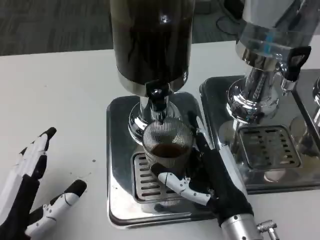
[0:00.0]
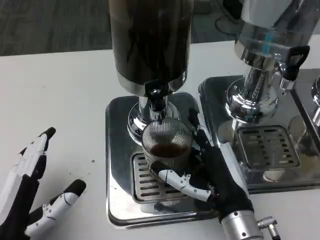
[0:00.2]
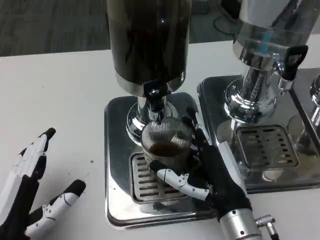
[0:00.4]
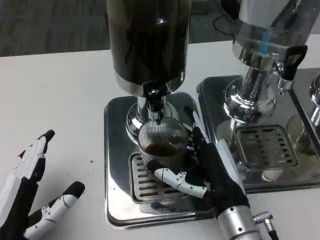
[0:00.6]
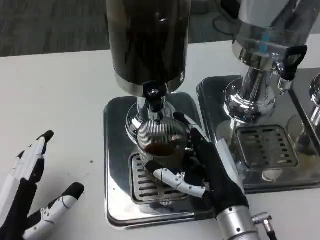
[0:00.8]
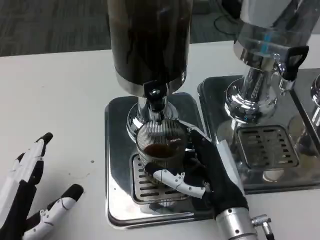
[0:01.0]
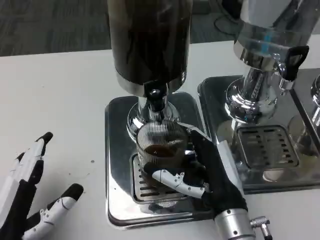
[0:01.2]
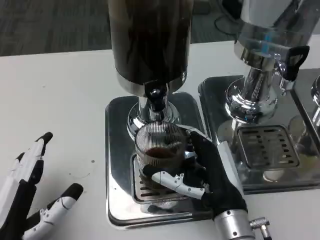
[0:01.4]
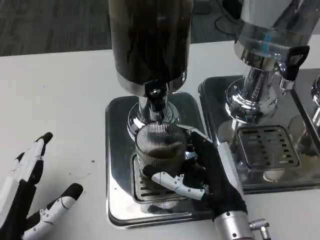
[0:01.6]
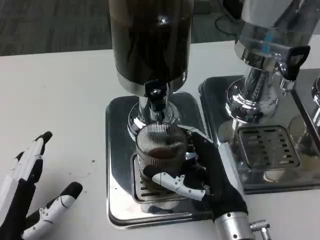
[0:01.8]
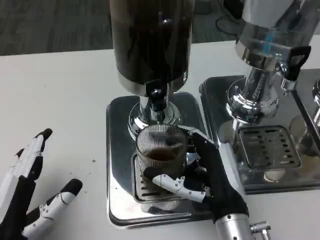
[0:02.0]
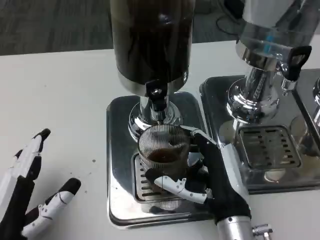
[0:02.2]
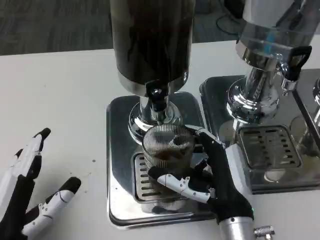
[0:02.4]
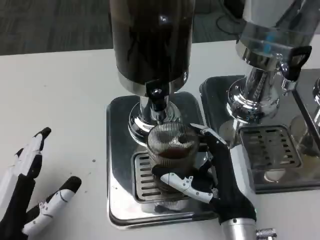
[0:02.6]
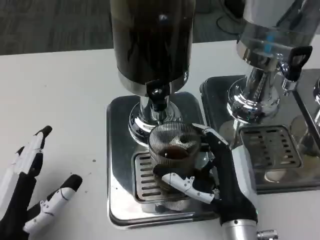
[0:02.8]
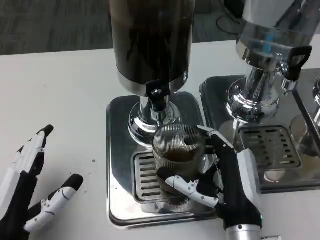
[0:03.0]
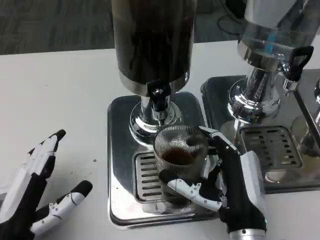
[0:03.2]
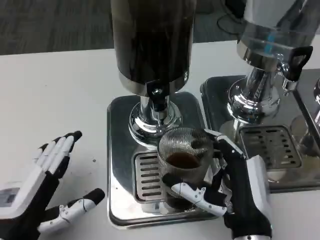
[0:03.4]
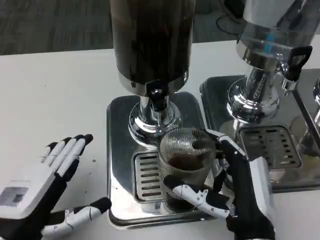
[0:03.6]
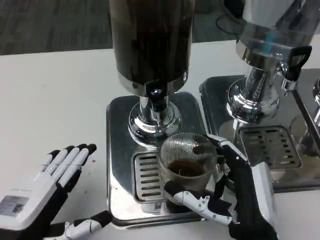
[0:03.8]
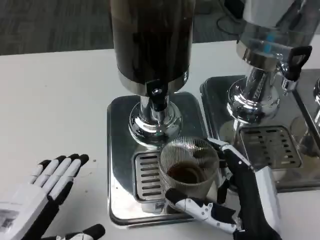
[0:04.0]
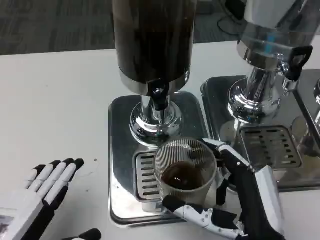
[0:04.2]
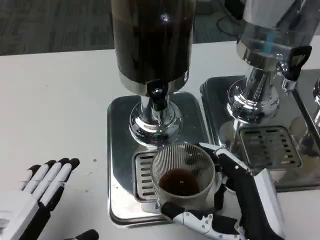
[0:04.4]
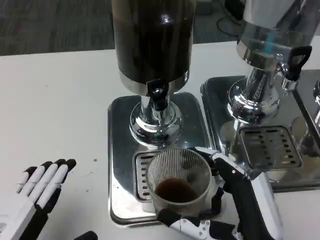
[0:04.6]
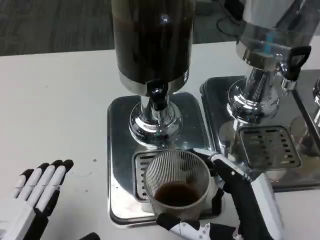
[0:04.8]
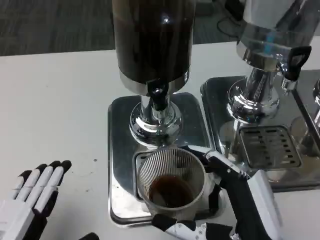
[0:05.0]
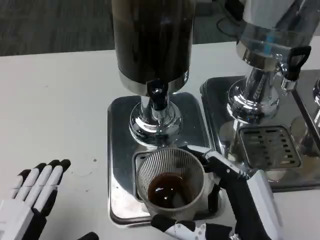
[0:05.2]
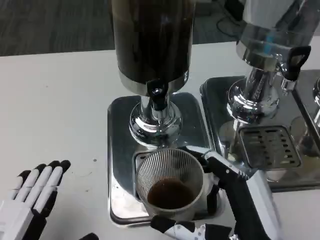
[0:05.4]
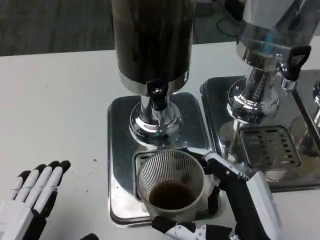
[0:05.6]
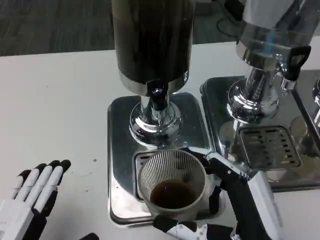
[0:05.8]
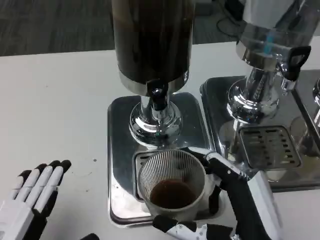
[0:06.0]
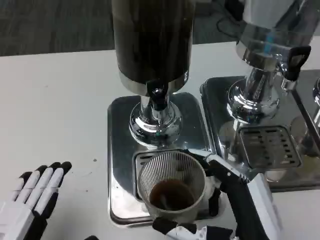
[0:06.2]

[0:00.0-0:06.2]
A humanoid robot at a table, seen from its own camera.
Task of the whole recording: Grasp the cup under the faucet to collect the drink, then remove the cup.
0:00.0 to 0:01.6: The hands stay close to where they were, moving slightly.
0:03.2 to 0:04.6: The right hand travels backward by approximately 5 cm, while the left hand moves roughly 5 cm.
0:04.6 to 0:06.2: The hands move only a little.

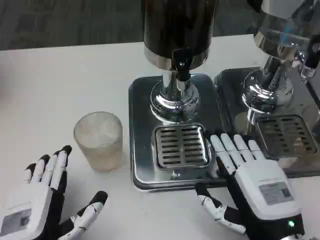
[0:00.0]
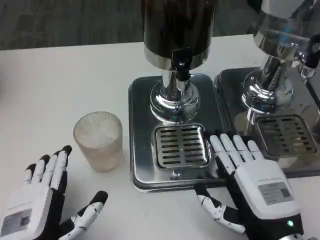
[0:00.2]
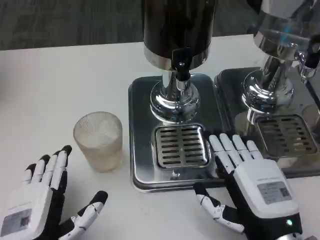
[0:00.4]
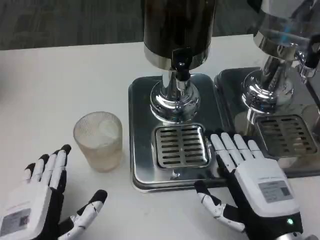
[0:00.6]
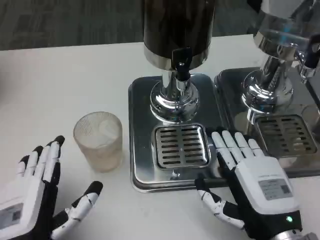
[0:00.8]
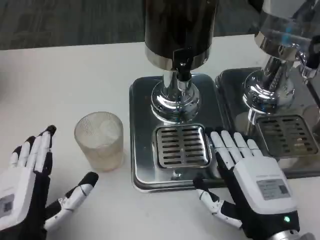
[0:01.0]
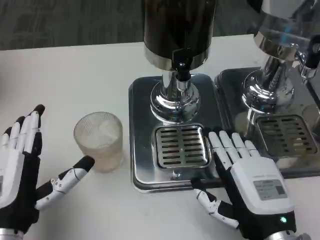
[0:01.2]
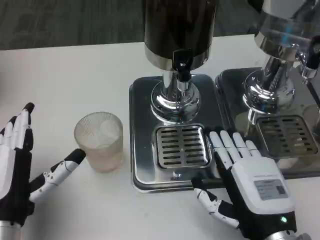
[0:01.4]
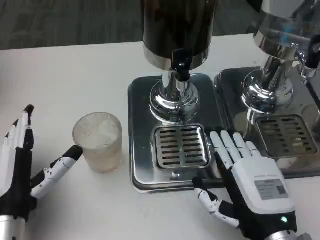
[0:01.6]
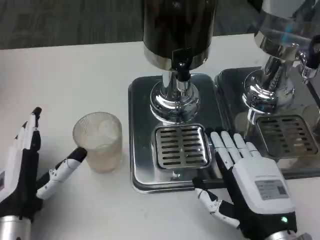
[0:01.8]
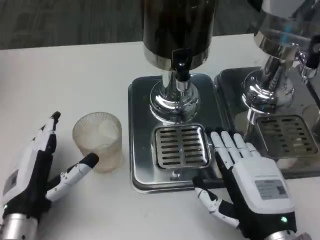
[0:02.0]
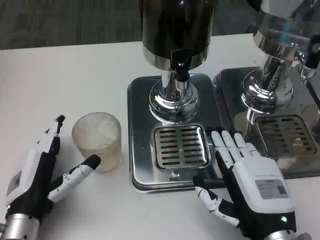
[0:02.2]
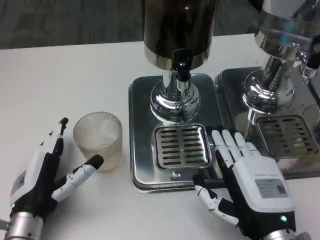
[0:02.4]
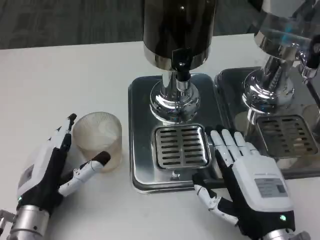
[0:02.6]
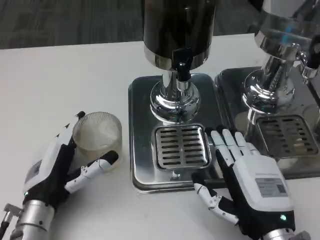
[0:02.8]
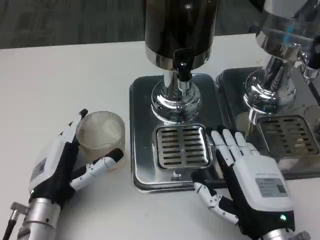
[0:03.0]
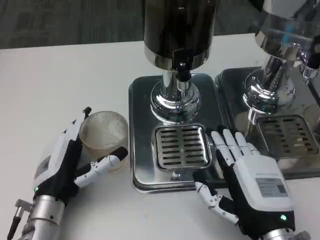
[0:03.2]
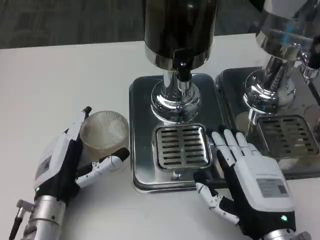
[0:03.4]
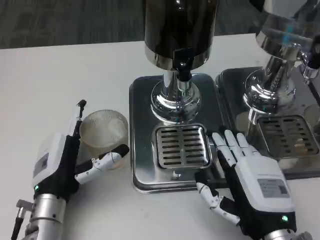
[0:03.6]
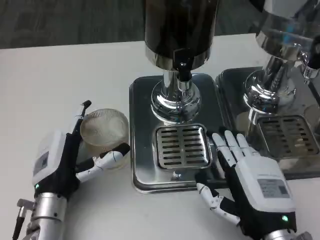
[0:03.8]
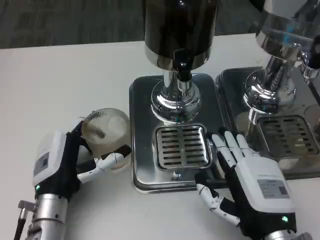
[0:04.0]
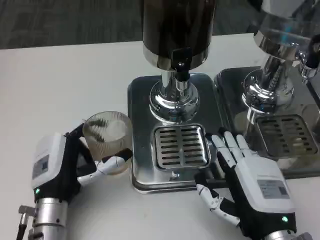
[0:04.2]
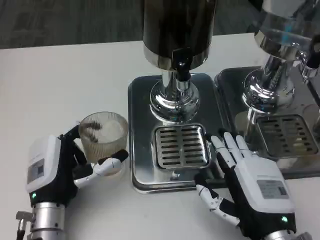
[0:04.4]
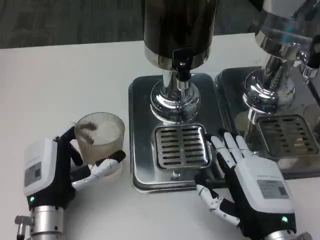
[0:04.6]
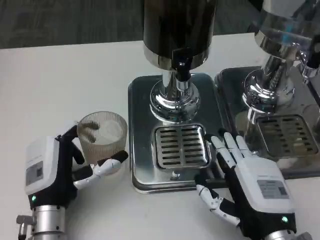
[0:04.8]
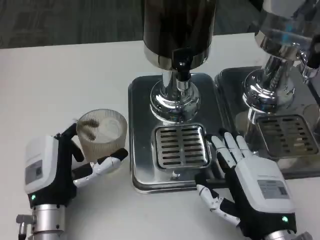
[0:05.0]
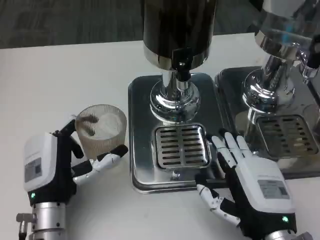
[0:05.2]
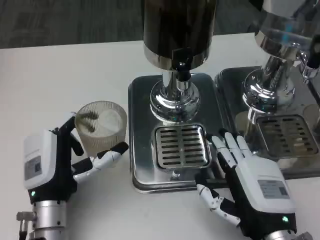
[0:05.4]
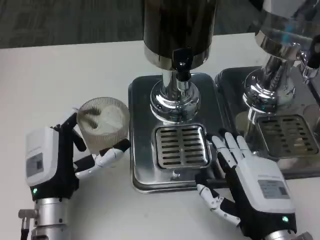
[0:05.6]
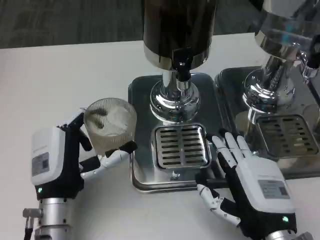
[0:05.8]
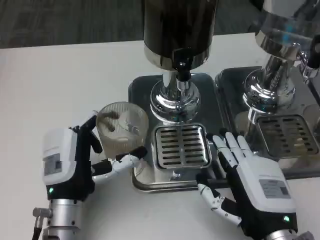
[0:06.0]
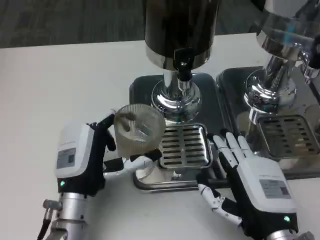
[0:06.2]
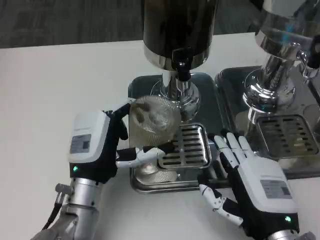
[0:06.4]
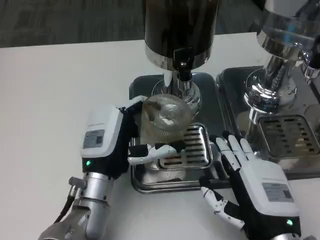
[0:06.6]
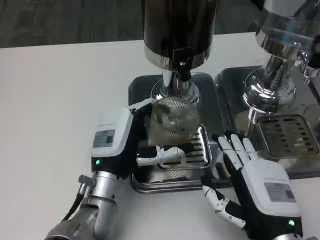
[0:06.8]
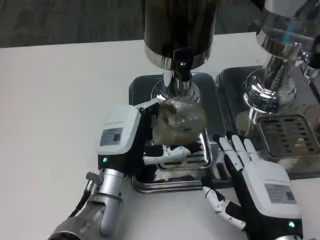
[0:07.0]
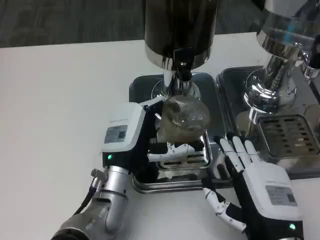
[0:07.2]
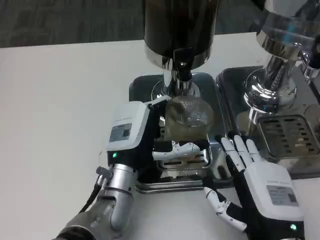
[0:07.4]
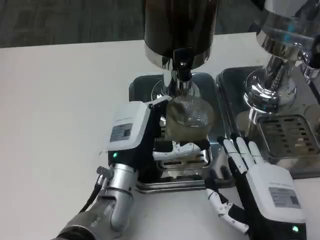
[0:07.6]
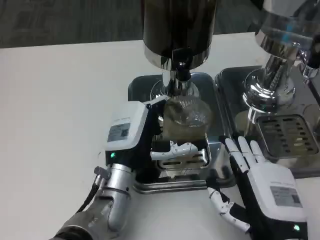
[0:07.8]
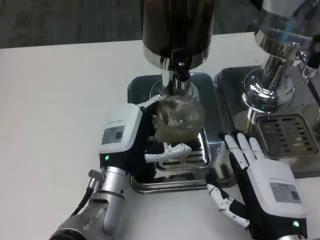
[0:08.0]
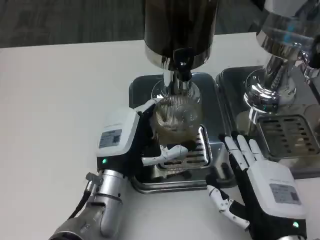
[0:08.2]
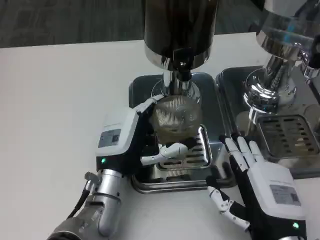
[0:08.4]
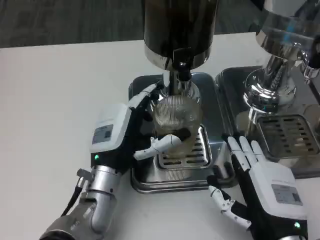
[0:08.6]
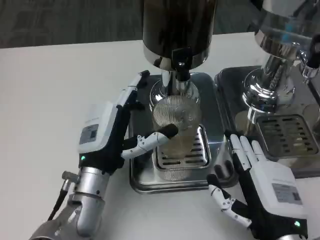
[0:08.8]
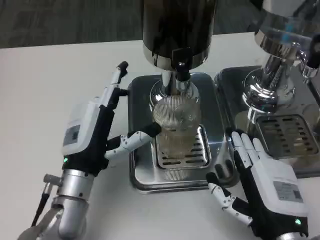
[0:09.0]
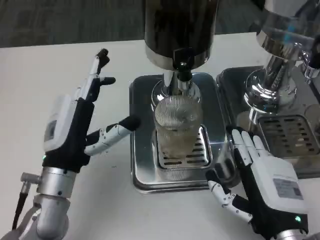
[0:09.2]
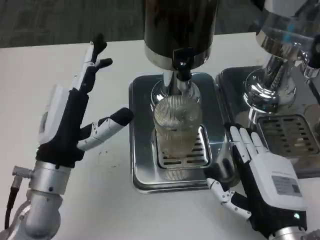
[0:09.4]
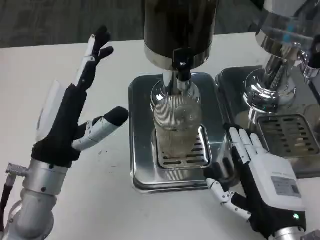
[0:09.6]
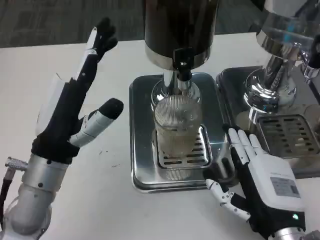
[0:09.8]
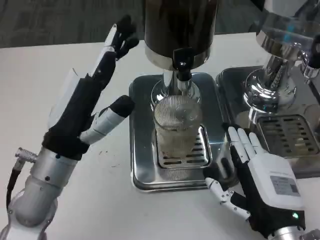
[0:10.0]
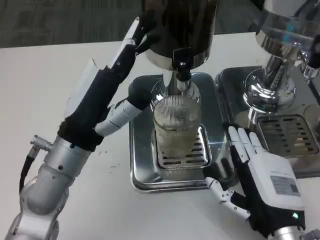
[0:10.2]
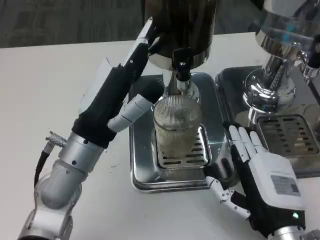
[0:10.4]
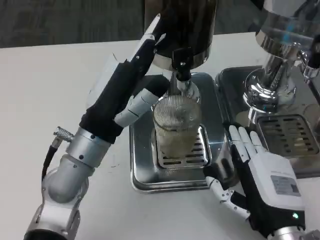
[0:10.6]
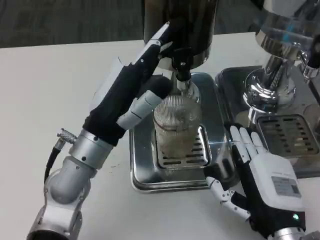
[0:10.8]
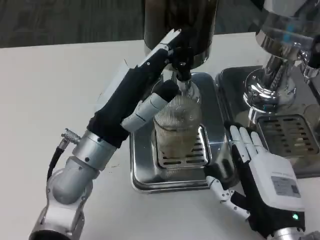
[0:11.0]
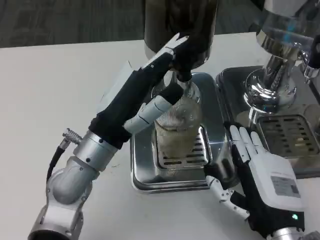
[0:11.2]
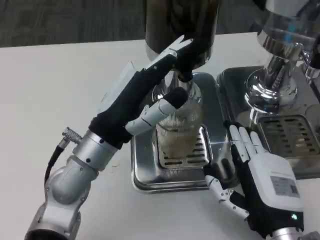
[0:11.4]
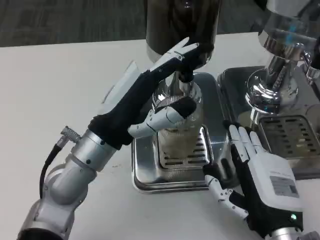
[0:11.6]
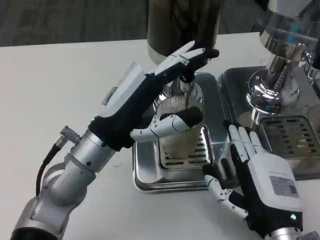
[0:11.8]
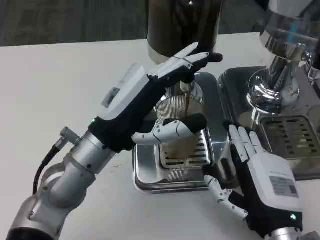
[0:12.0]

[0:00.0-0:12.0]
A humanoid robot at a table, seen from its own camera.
Task of the whole recording: Grasp the cup under the faucet to collect the drink, then remove the cup.
0:00.0 to 0:01.6: The left hand goes approximately 5 cm forward.
0:03.0 to 0:04.4: There are only small adjustments of the hands.
0:04.4 to 0:06.0: The hands stay close to where they were, moving slightly.
0:06.0 to 0:07.6: The left hand is displaced to the right by roughly 5 cm.
0:07.6 to 0:09.0: The left hand moves to the left, about 5 cm.
0:09.0 to 0:10.4: The left hand heads upward, covering some 5 cm.

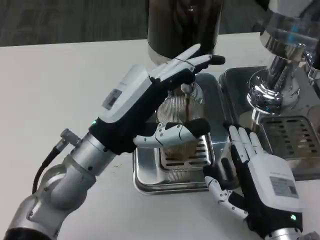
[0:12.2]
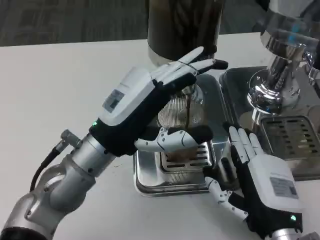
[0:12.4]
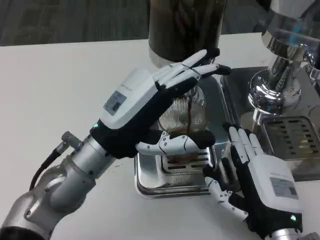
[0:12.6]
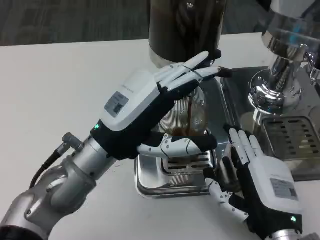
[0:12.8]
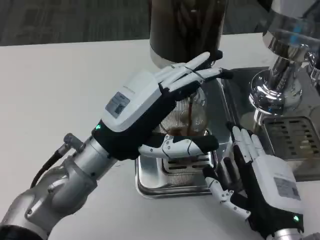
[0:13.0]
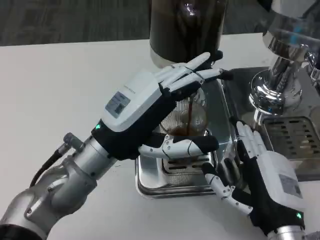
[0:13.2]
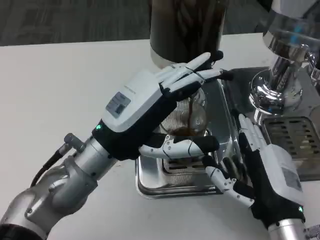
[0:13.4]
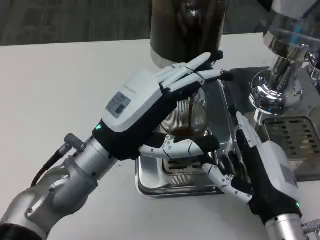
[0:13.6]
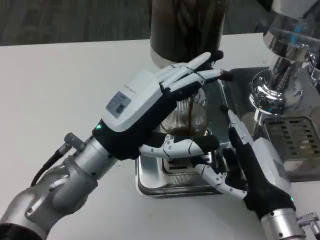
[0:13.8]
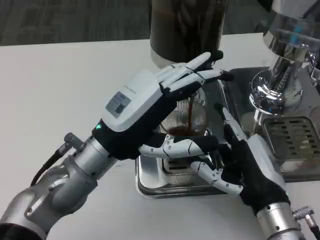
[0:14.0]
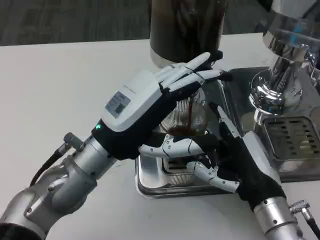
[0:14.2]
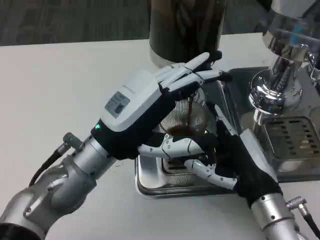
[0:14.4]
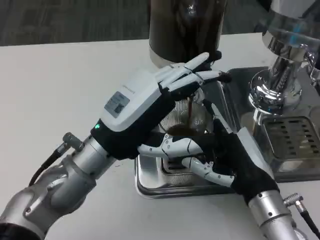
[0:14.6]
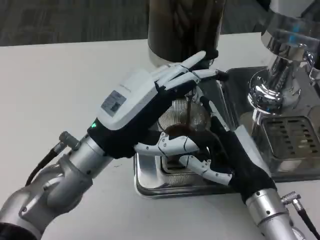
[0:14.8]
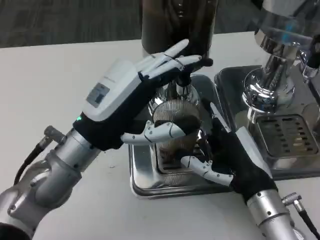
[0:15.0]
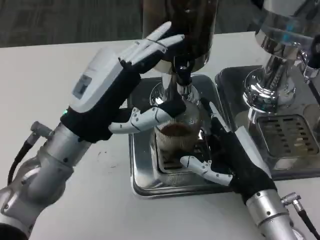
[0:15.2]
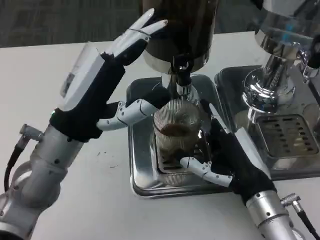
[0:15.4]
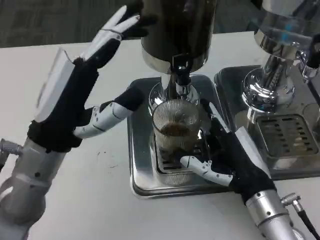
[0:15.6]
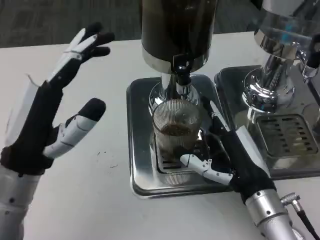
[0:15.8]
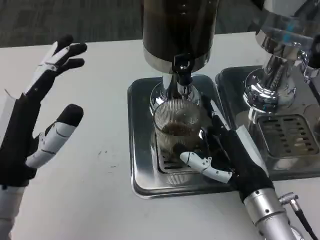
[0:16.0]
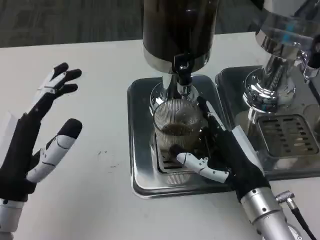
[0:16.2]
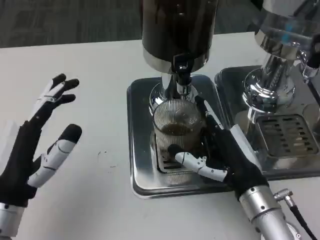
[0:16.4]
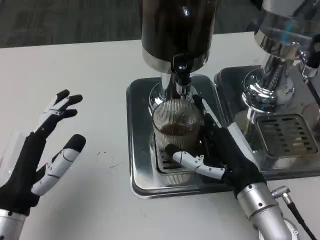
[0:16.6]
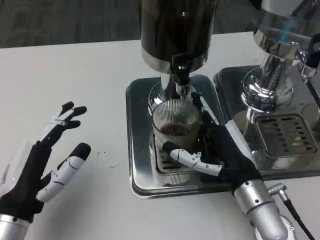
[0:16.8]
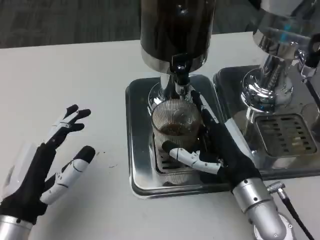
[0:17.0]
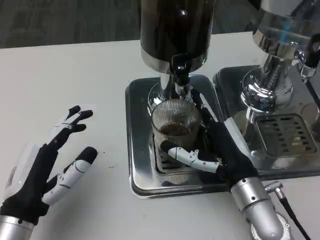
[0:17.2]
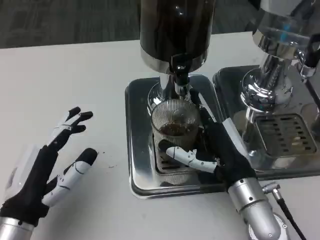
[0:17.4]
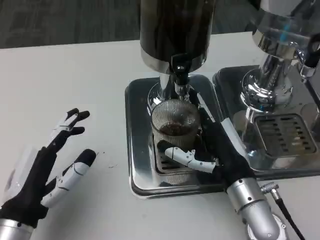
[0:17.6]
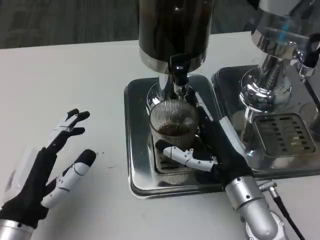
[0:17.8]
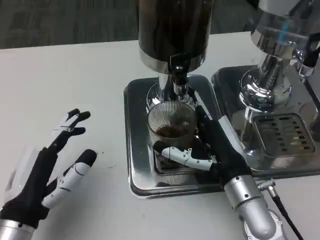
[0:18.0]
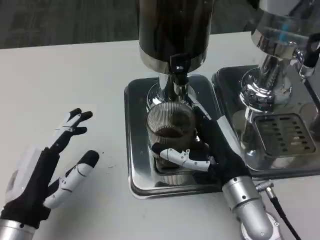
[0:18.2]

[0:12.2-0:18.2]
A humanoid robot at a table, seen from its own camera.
Task of the whole recording: Grasp the cup under the faucet to collect the drink, then remove the cup.
0:15.2 to 0:16.6: The left hand is displaced backward, downward and to the left by approximately 15 cm.
